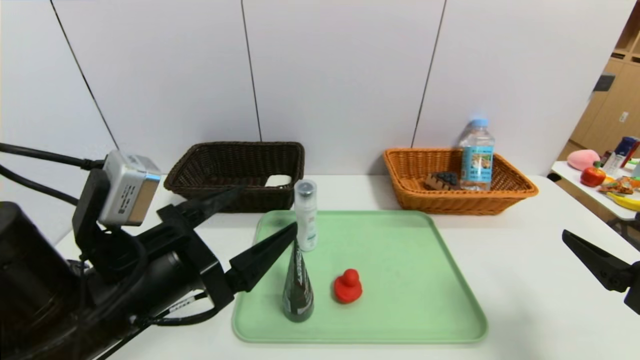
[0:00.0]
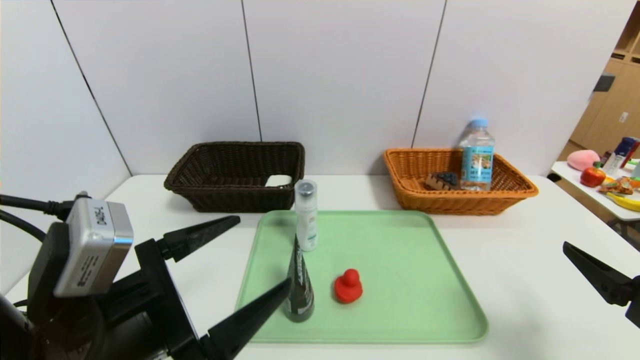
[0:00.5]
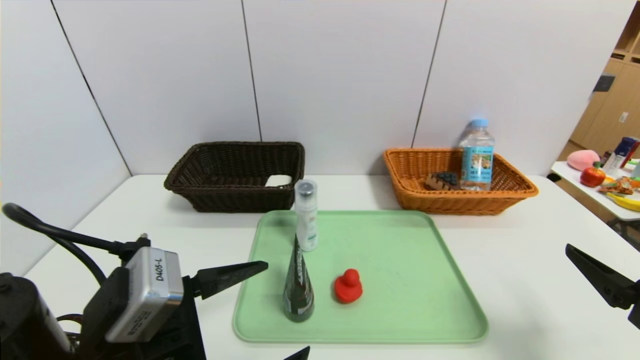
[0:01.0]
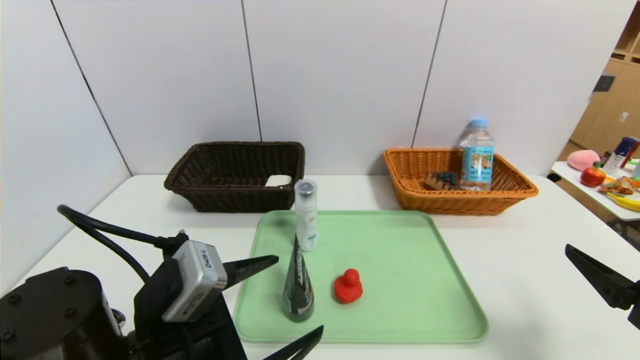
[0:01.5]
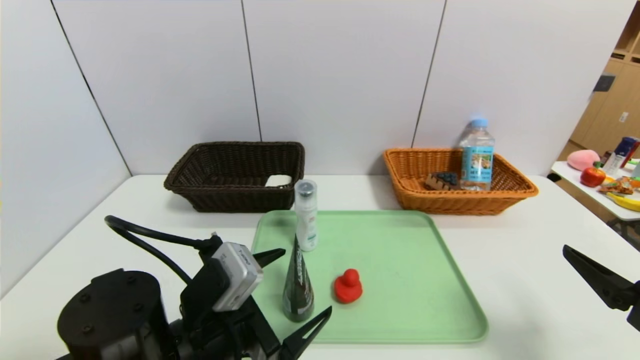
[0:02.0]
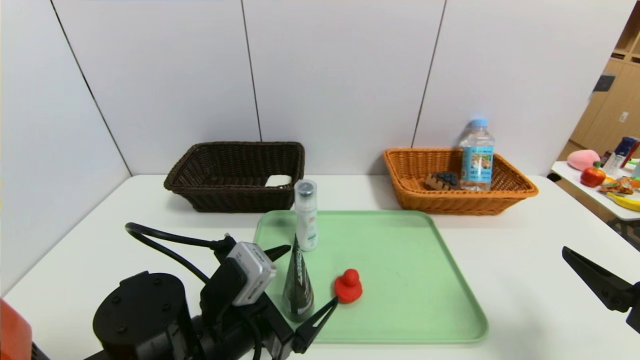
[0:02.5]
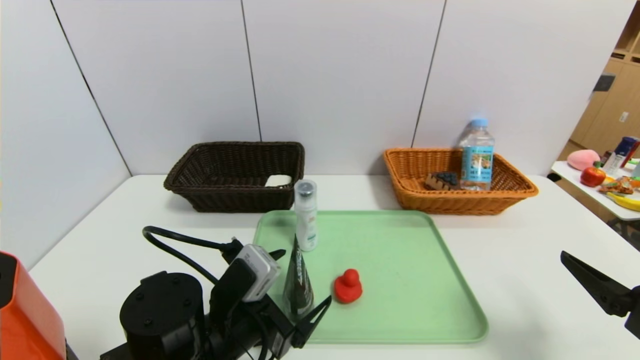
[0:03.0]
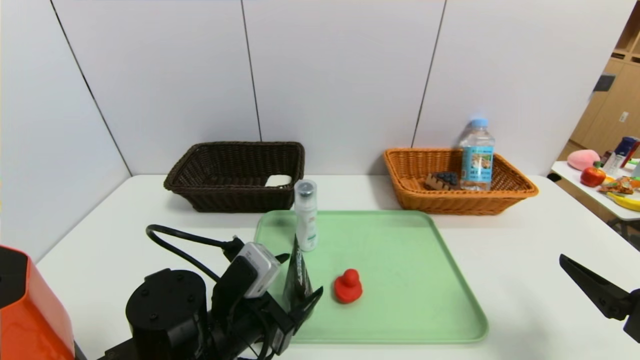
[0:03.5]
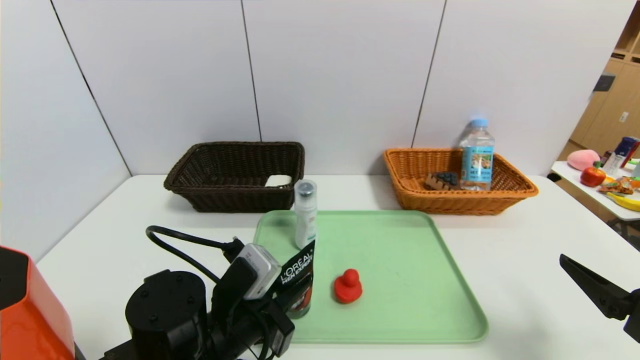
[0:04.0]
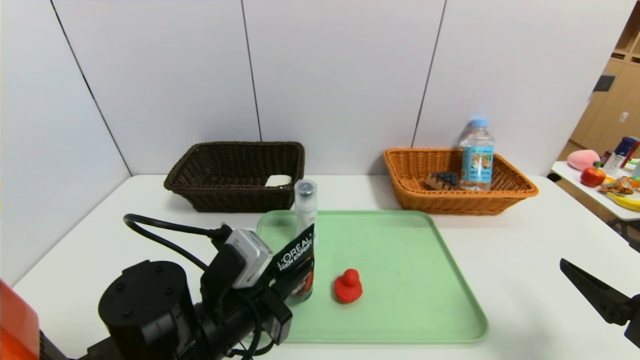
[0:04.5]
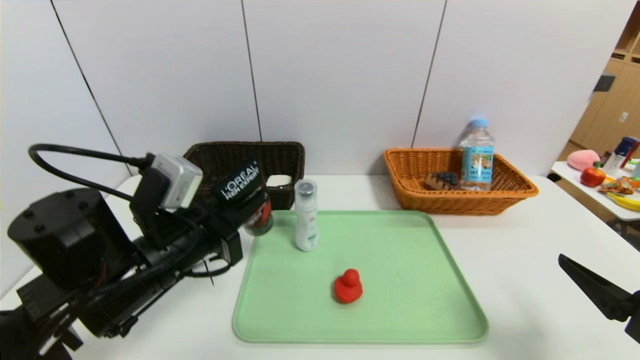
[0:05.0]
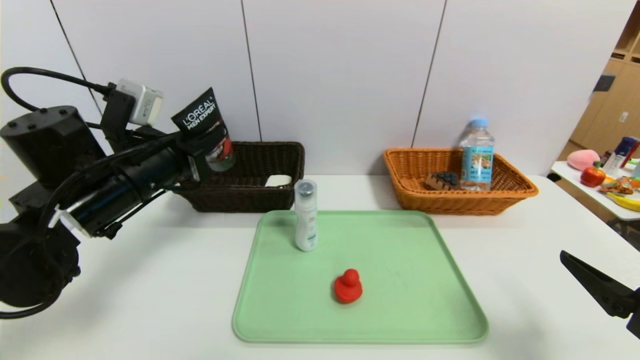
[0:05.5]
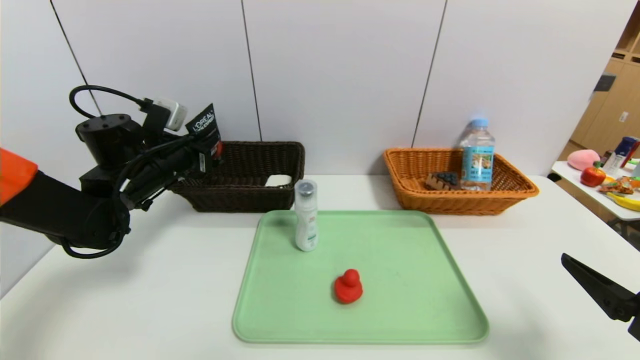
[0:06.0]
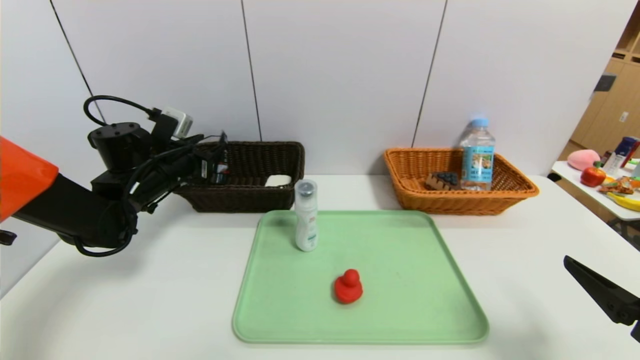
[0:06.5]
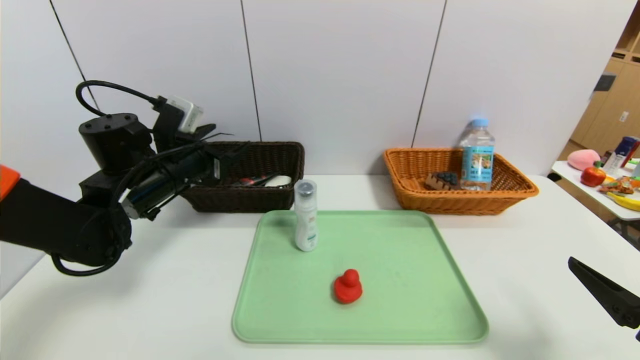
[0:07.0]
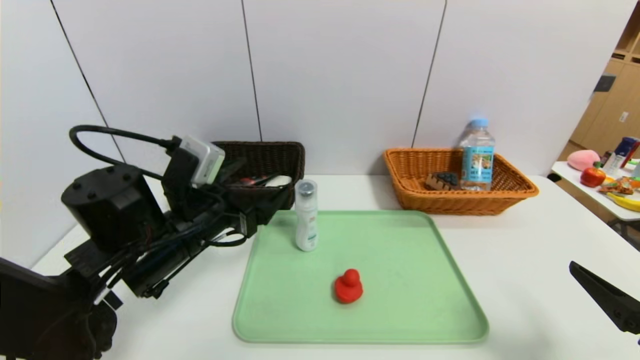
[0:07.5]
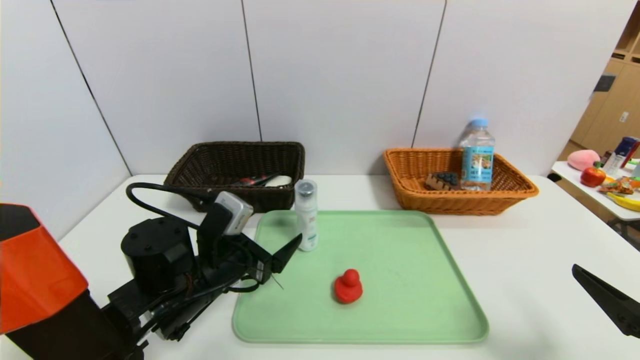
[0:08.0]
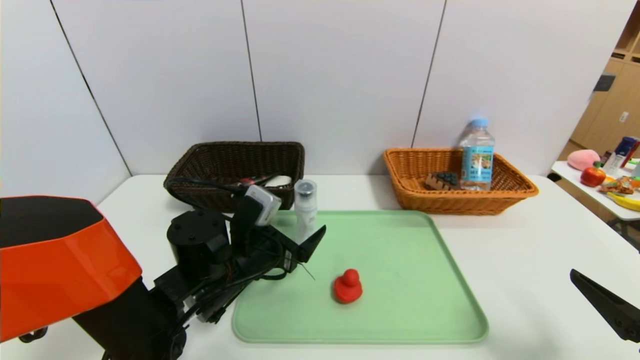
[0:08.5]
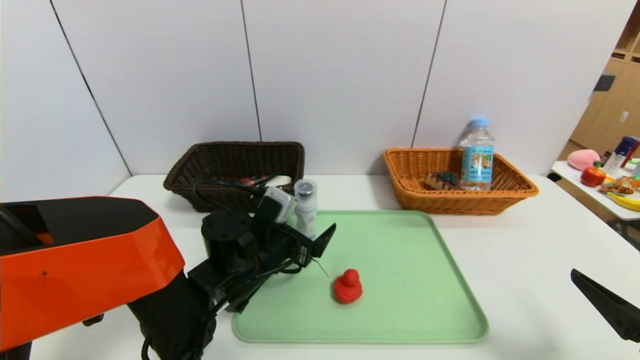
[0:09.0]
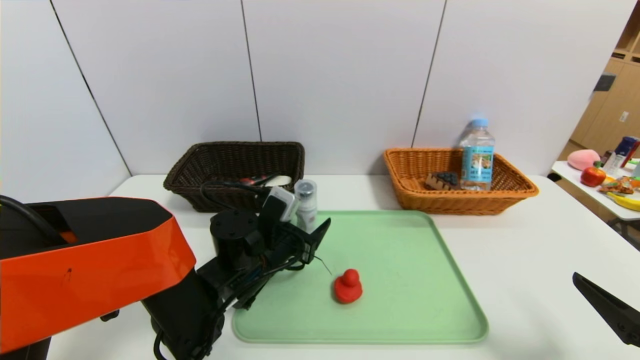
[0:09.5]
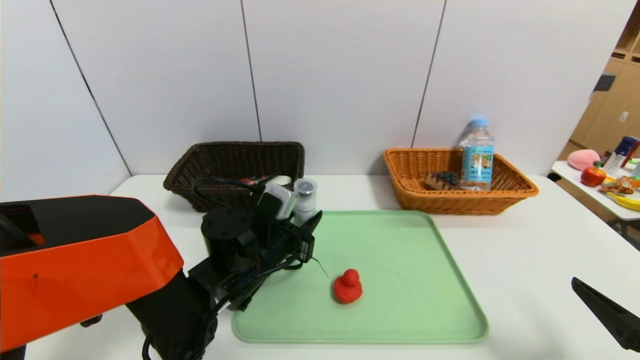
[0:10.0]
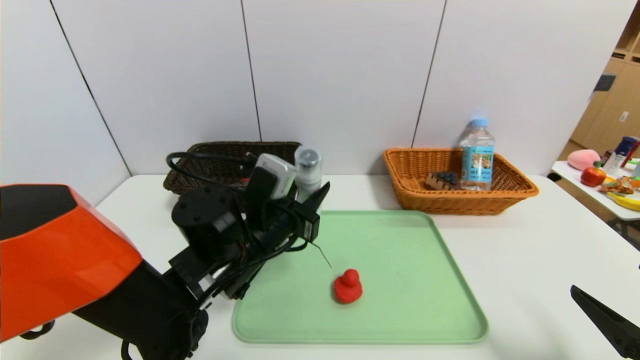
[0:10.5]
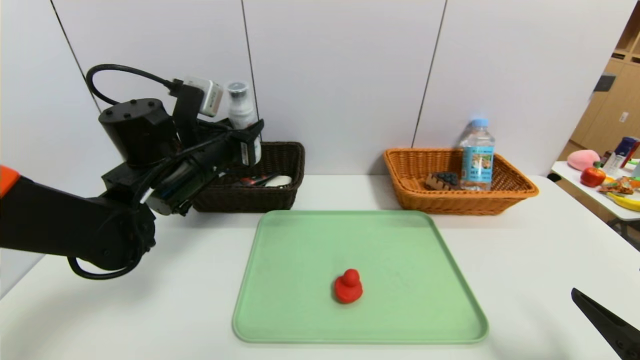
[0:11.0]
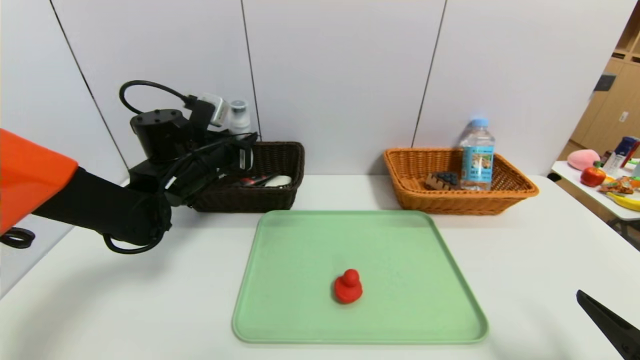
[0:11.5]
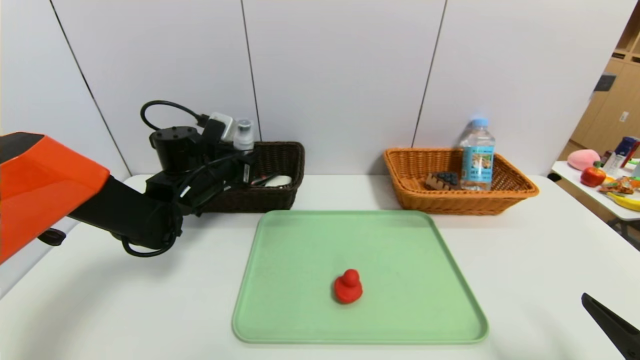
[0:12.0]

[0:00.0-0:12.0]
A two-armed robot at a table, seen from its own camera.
Task of the whole recording: place the food in the right basket with the right gripper, and place the non food items in the left basket with the left gripper.
Step, 0:00.0 to 0:06.5: Grasp the soft cleanser and put it in the left basket.
0:00.0 to 0:02.0: The left gripper is displaced downward by about 5 cm.
0:02.0 to 0:04.0: The left gripper closes up.
0:04.0 to 0:06.0: The left gripper shifts about 25 cm forward, to the left and upward.
0:06.0 to 0:08.0: The left gripper goes about 20 cm backward, to the right and downward, and opens up.
0:08.0 to 0:10.0: The left gripper is displaced to the right by approximately 5 cm, and closes its fingers.
0:10.0 to 0:12.0: The left gripper goes some 15 cm forward, to the left and upward.

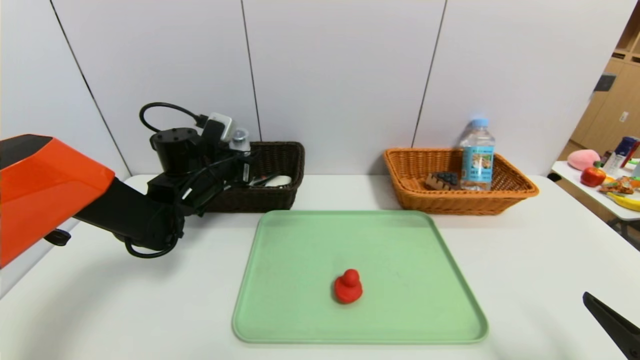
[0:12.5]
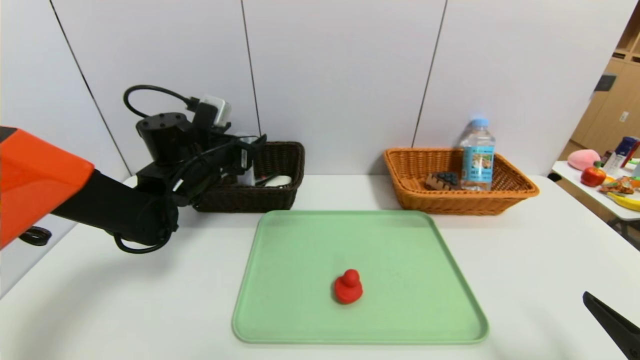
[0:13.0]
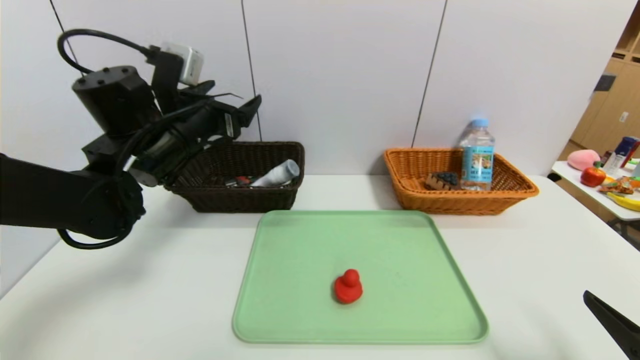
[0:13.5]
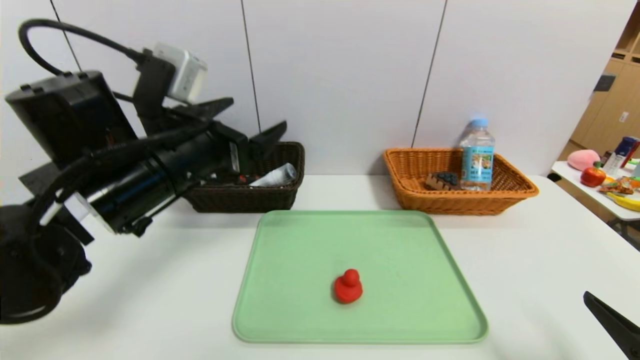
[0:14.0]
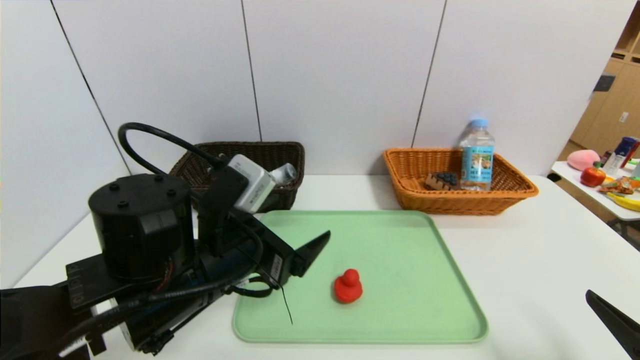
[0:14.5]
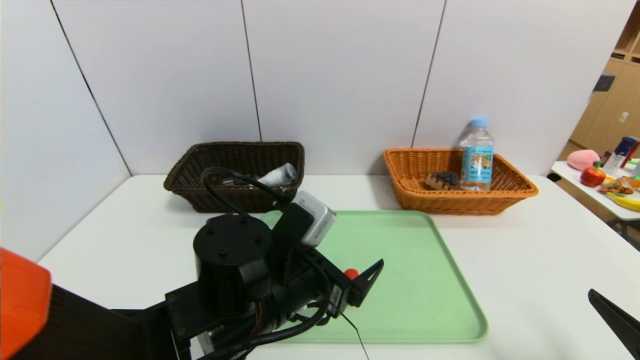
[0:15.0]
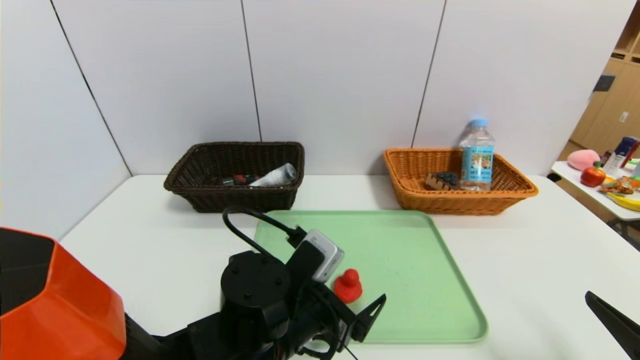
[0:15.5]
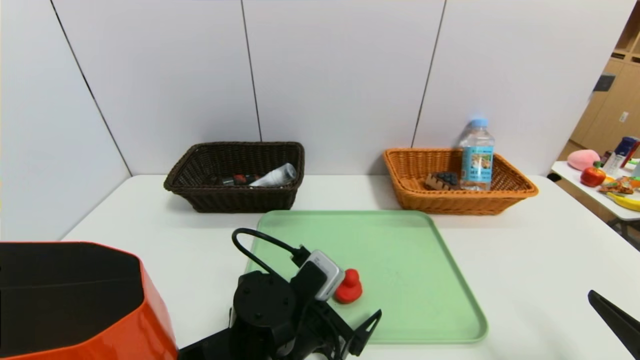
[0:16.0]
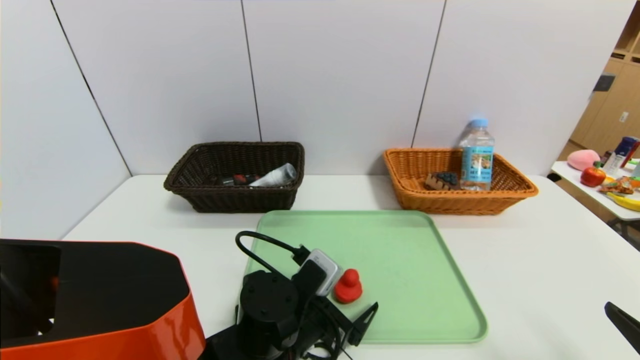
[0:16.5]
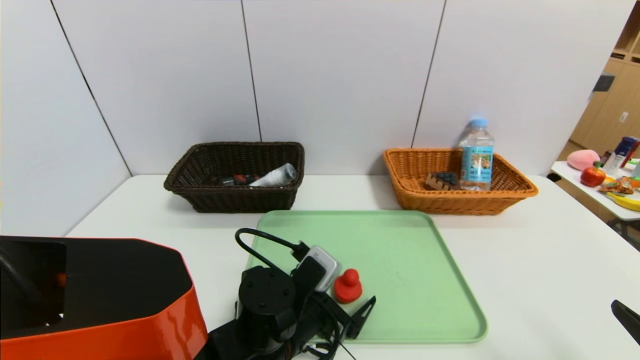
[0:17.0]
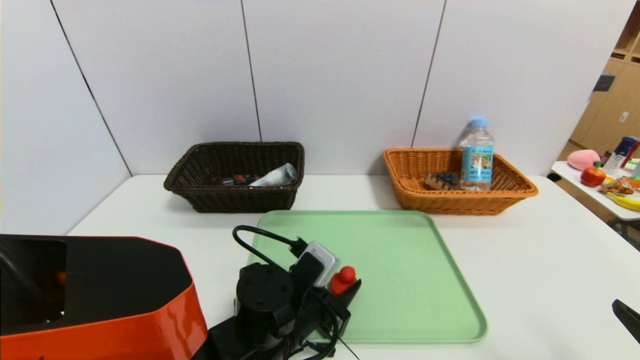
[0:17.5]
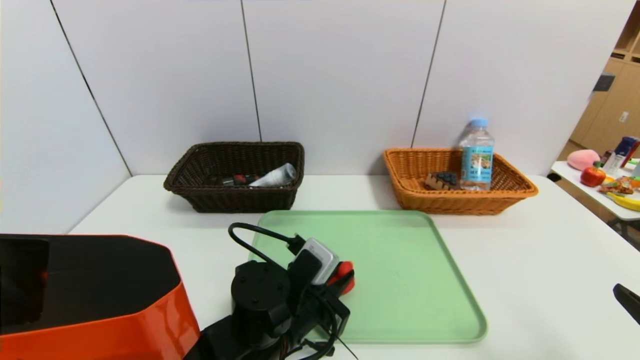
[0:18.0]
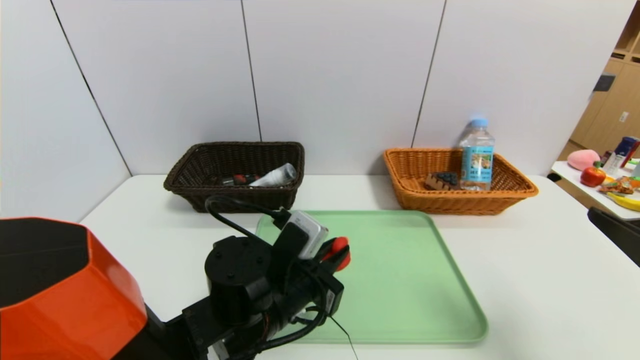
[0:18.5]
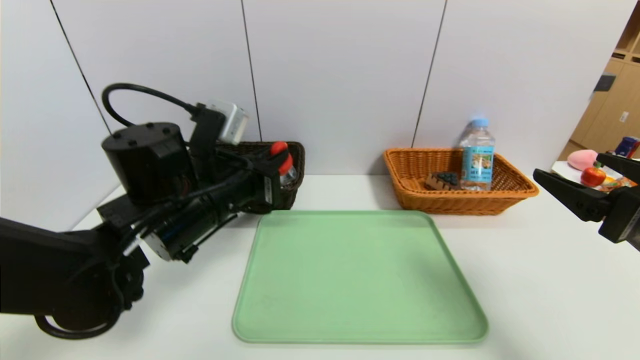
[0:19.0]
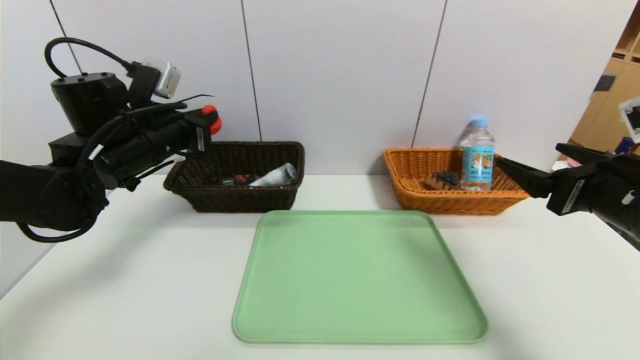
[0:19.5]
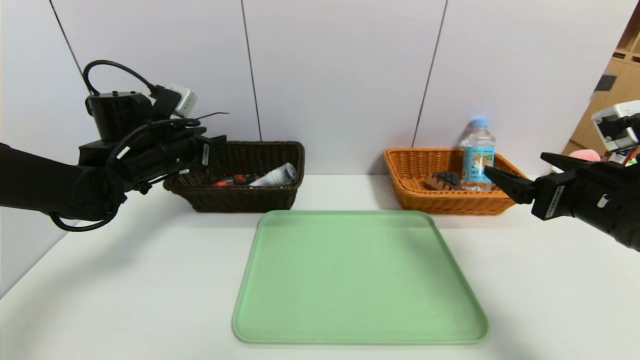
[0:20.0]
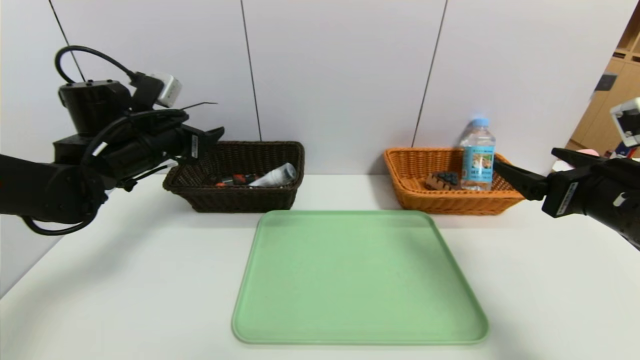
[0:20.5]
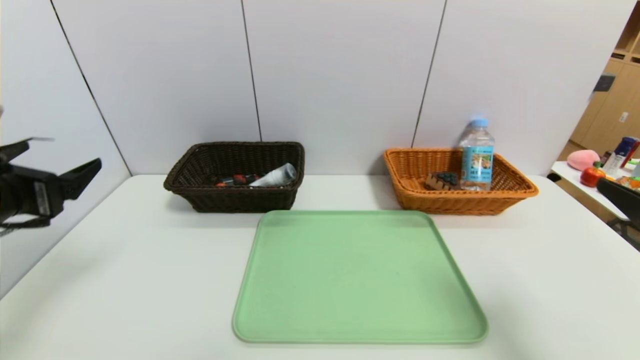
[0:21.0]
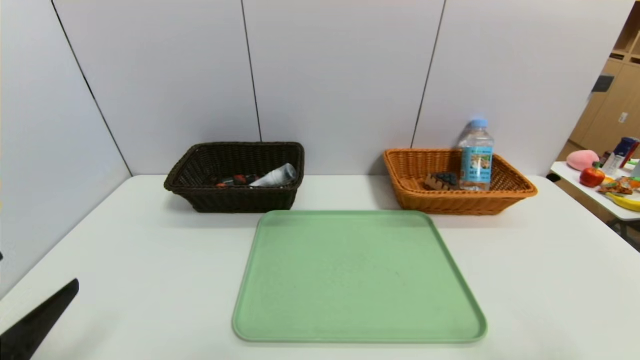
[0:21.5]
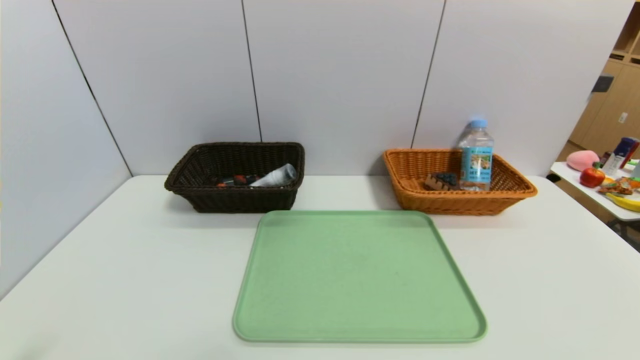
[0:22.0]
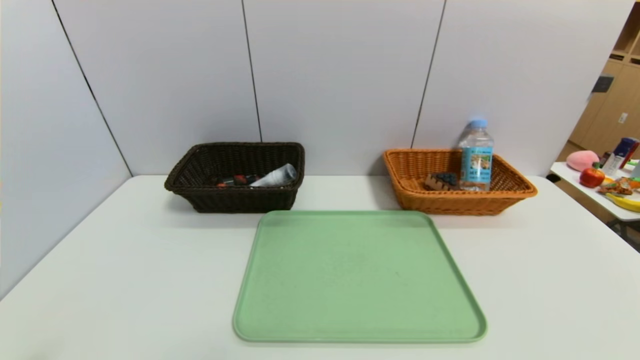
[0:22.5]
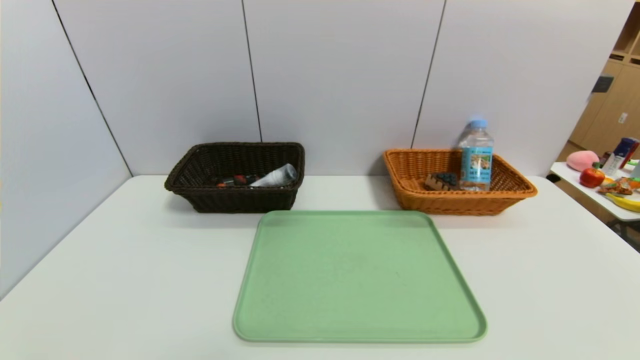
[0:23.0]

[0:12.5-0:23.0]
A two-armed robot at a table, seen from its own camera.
Task of the whole recording: place the food in the right basket with the right gripper, and place the non food items in the left basket with the left gripper.
Step, 0:13.0 to 0:20.0: Grasp the red duck and put it in the left basket.
0:12.5 to 0:14.5: The left gripper is displaced backward by approximately 20 cm, and opens.
0:14.5 to 0:16.5: The left gripper shifts approximately 15 cm downward and to the right.
0:16.5 to 0:19.0: The right gripper travels forward and upward by some 15 cm. The left gripper is displaced upward, to the left and forward by about 20 cm, and closes up.
0:19.0 to 0:21.0: The right gripper heads backward, covering approximately 5 cm. Meanwhile the left gripper shifts approximately 20 cm to the left and backward, and opens up.
0:21.0 to 0:23.0: The grippers both shift backward and downward by roughly 20 cm.
